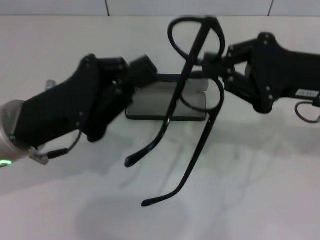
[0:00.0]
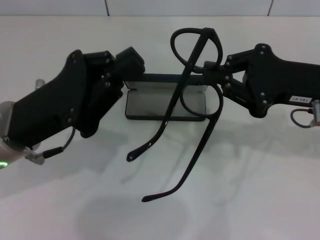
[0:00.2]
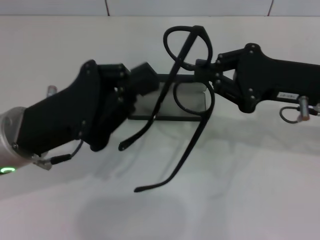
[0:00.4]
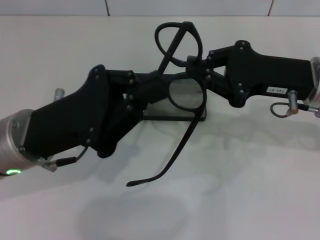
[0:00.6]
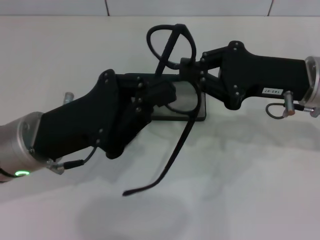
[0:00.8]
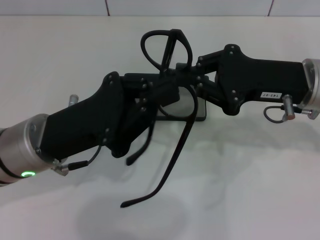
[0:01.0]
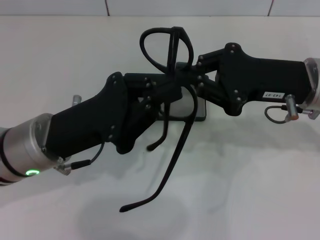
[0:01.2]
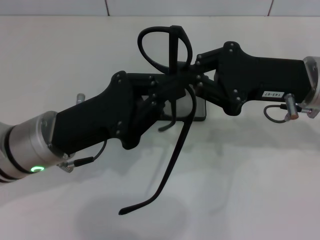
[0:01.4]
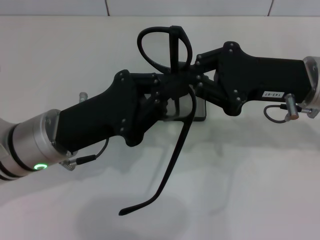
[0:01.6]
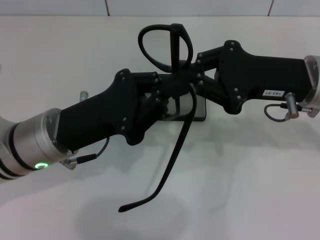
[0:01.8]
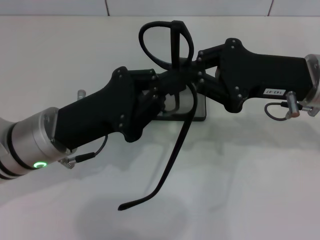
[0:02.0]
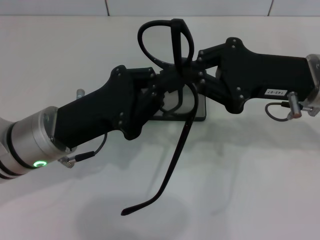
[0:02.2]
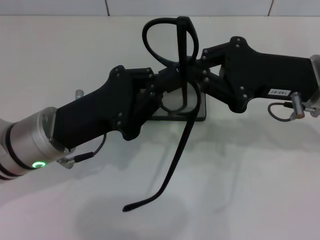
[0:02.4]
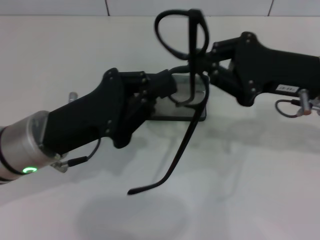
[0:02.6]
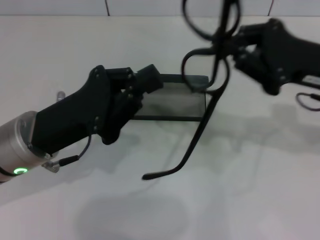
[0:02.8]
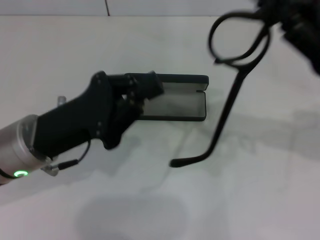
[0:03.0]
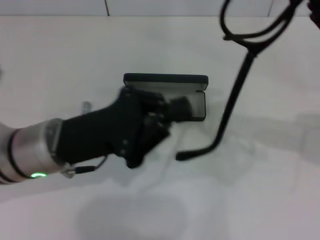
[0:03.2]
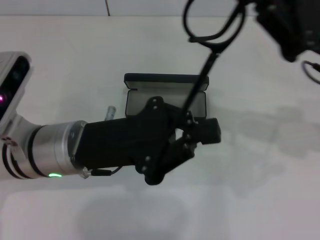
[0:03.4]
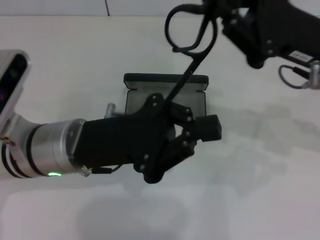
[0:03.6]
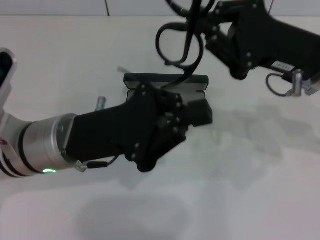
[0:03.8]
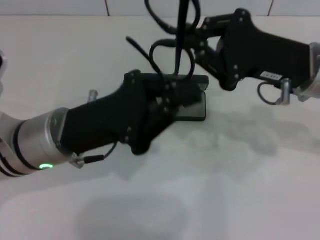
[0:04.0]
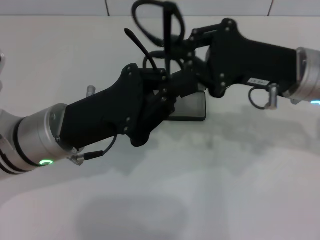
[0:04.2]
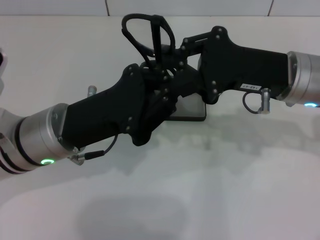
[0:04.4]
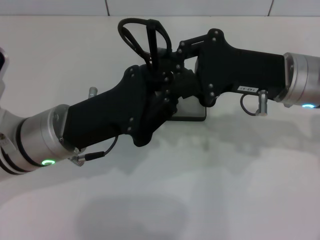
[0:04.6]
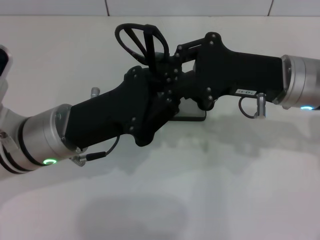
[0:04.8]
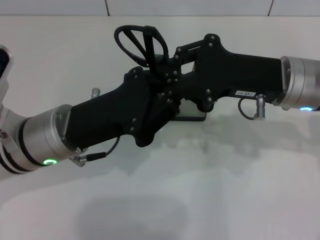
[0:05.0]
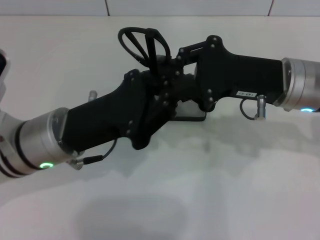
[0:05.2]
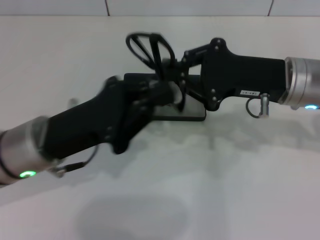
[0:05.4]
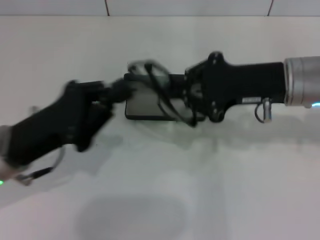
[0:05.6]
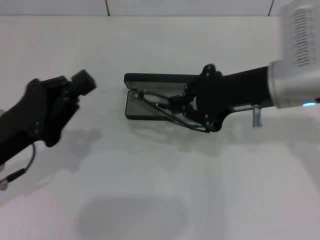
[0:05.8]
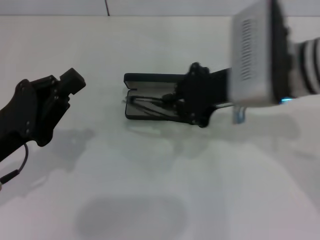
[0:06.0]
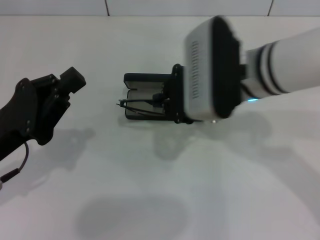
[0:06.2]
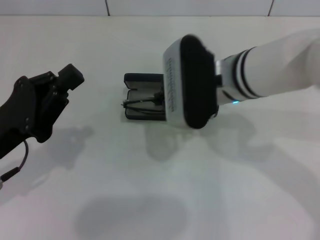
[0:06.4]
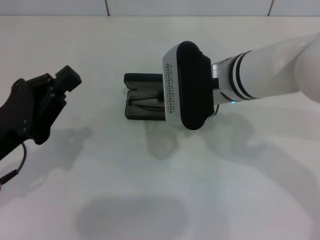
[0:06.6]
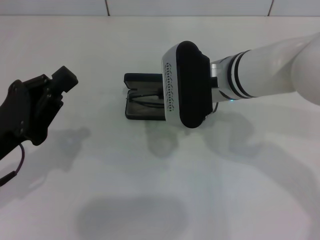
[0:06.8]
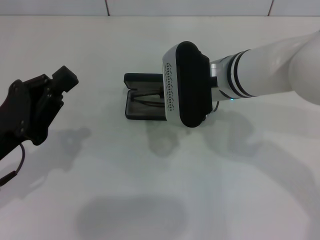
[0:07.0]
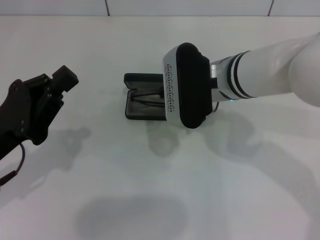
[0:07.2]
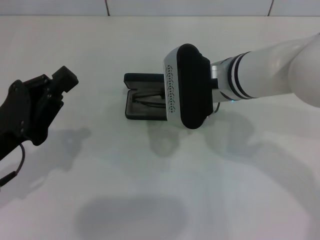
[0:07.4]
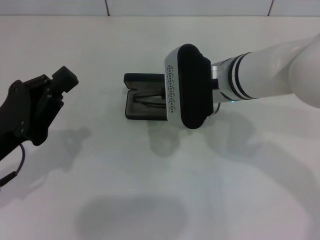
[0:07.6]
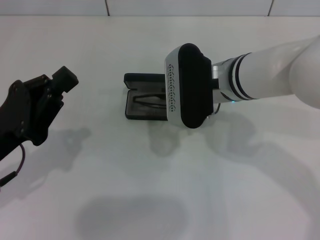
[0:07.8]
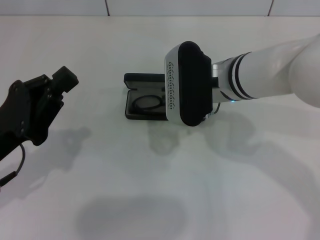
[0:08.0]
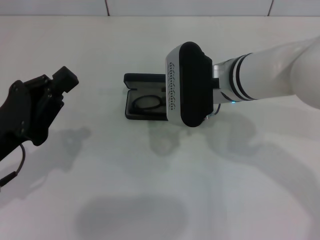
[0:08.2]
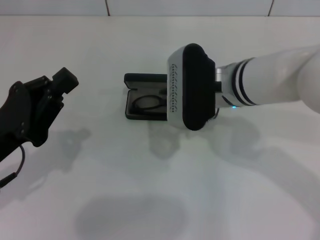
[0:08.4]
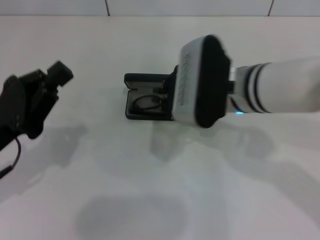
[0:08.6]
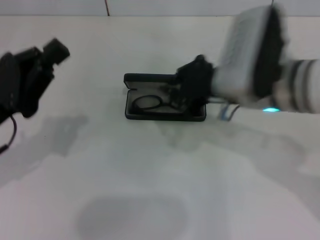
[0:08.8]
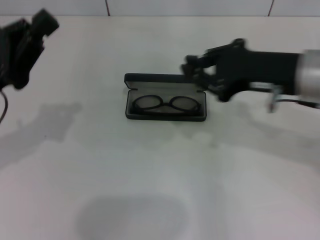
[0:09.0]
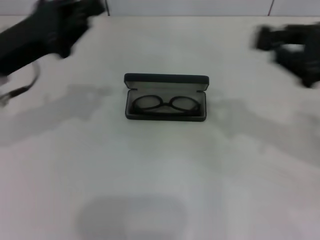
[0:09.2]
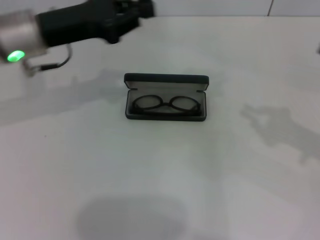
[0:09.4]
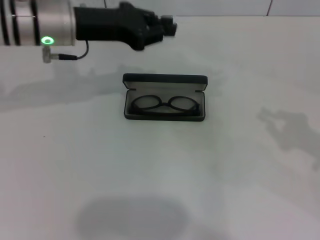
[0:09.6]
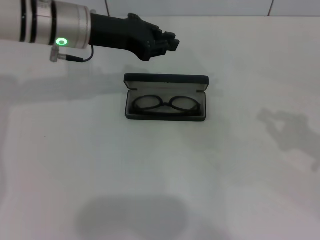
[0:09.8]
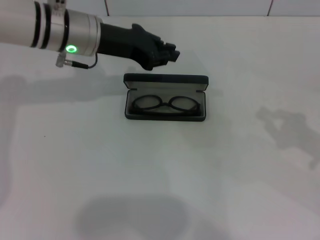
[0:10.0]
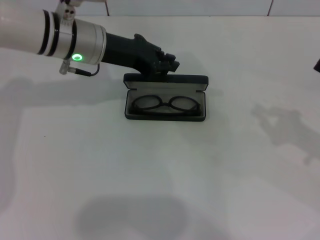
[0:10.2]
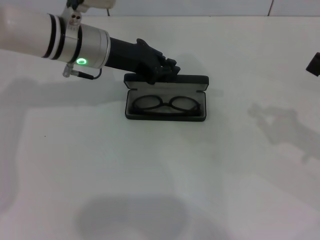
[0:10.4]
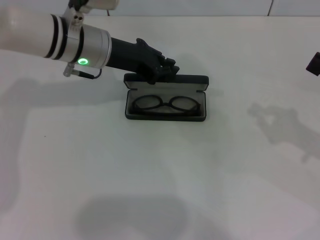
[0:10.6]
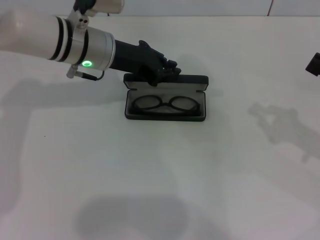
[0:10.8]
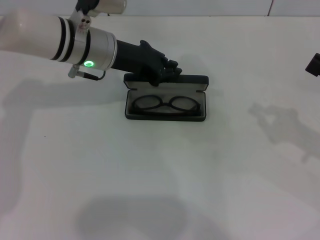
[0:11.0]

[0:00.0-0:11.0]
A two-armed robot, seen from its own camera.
Step, 0:00.0 to 0:05.0: Fold the frame with your left hand.
Step, 0:05.2 to 0:08.2: Put the glasses into the case with your right hand.
0:01.6 to 0:03.2: The right gripper goes some 5 cm to the right.
0:03.2 to 0:04.8: The right gripper heads to the left, covering some 10 cm.
0:04.8 to 0:06.2: The two grippers go approximately 10 cm to the left.
0:06.2 to 0:07.8: The grippers move only a little.
0:07.8 to 0:09.4: The right gripper is displaced to the right by about 25 cm. The left gripper heads forward and upward, covering some 20 cm.
0:09.4 to 0:11.0: The right gripper moves downward, approximately 5 cm. Meanwhile the left gripper heads to the right, covering some 10 cm.

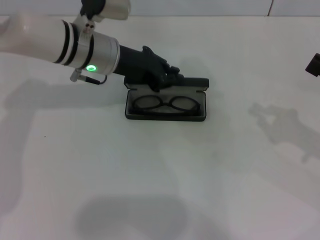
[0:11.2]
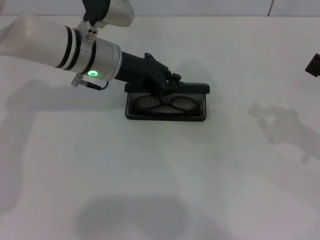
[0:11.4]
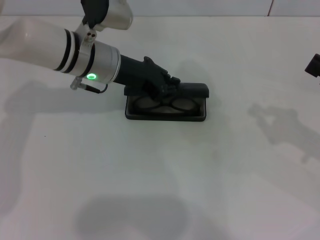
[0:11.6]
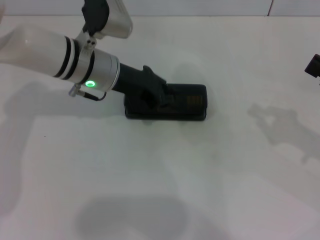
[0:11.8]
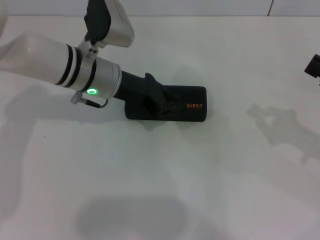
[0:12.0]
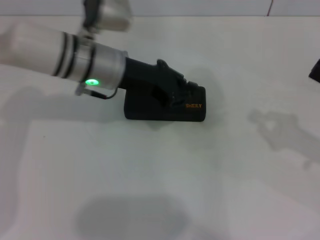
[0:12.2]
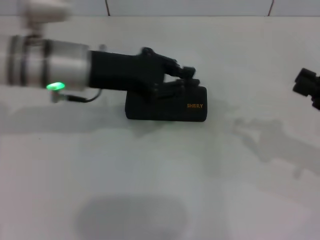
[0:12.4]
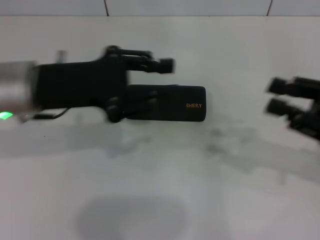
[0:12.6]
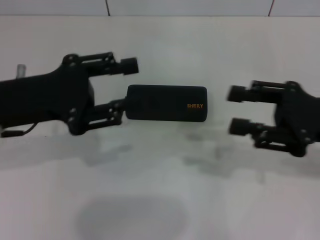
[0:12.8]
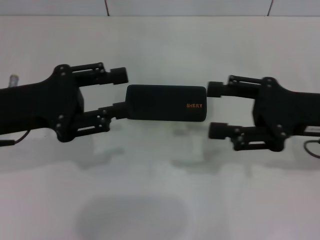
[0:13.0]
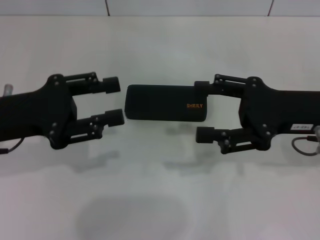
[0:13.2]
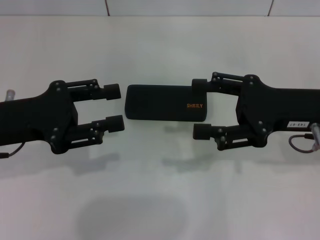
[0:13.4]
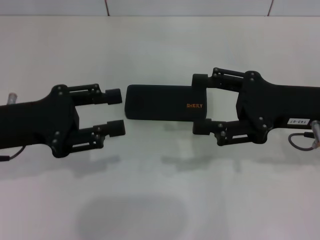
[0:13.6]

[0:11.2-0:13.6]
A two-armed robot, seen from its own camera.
0:11.2 to 0:12.4: The left gripper heads backward, covering some 5 cm.
0:12.4 to 0:13.6: The left gripper heads to the left and backward, covering approximately 15 cm, and opens up. The right gripper is displaced to the left by roughly 10 cm, and opens its fingers.
